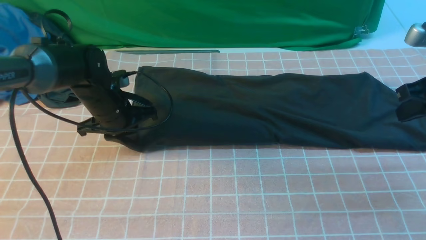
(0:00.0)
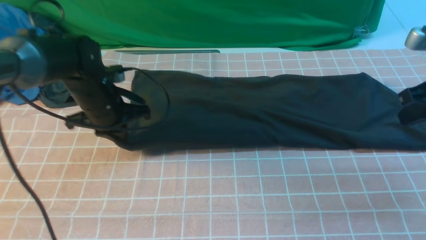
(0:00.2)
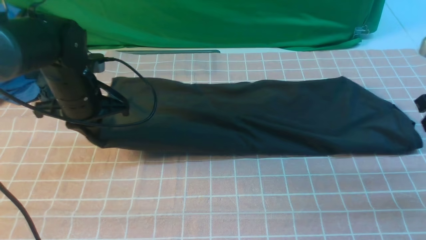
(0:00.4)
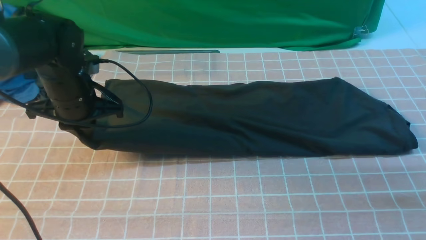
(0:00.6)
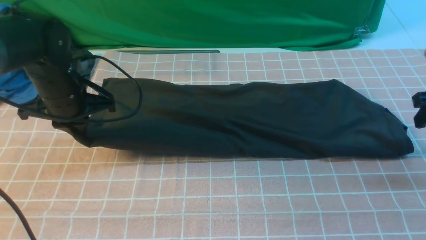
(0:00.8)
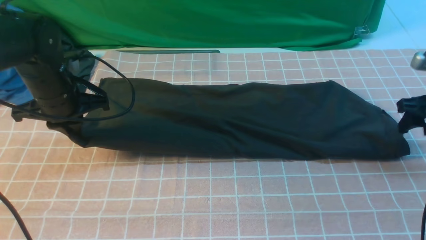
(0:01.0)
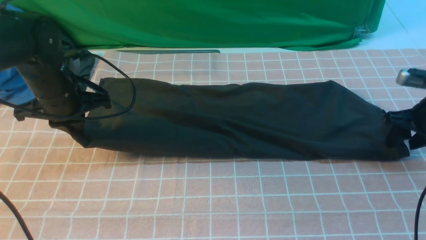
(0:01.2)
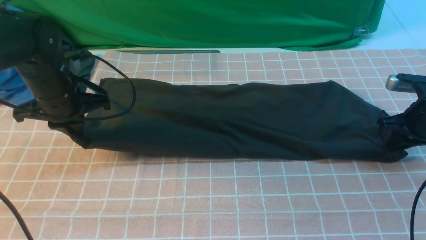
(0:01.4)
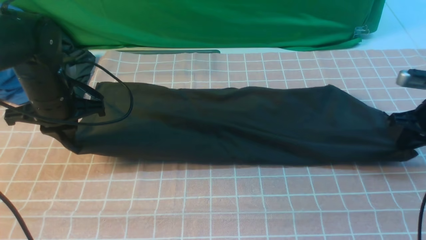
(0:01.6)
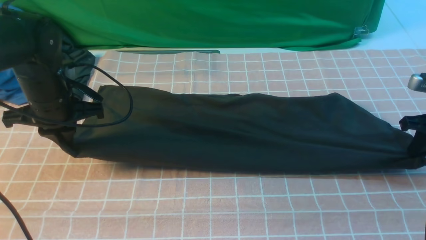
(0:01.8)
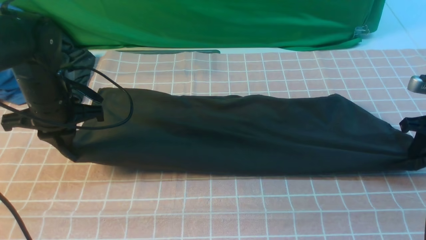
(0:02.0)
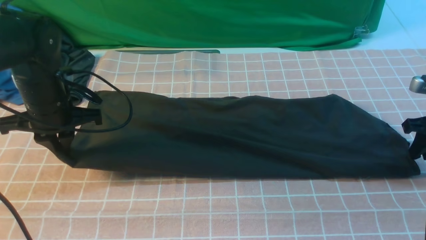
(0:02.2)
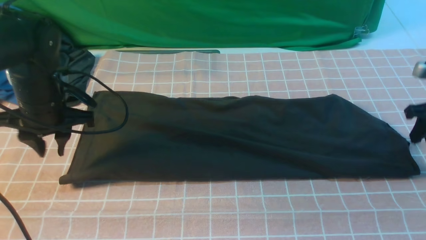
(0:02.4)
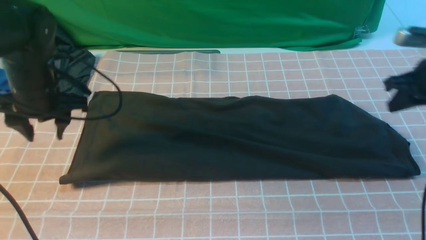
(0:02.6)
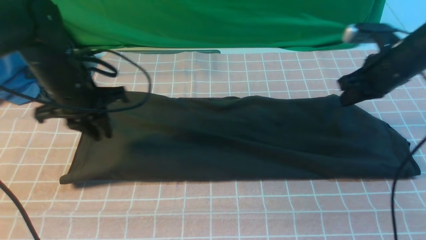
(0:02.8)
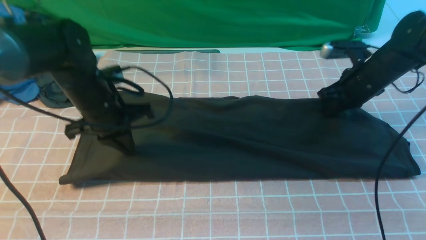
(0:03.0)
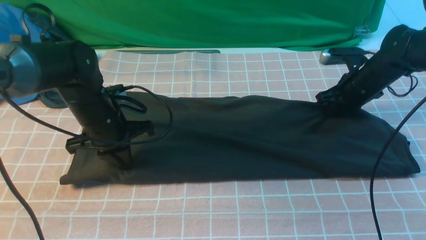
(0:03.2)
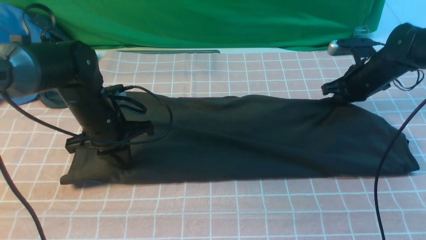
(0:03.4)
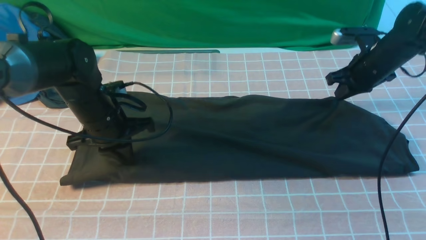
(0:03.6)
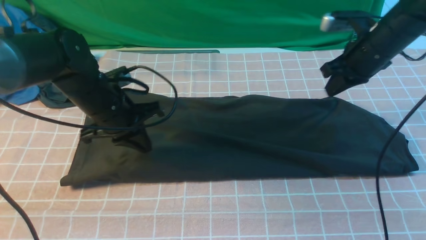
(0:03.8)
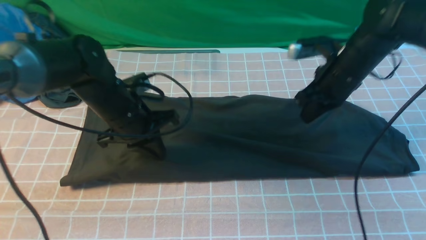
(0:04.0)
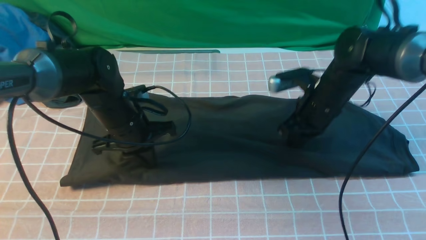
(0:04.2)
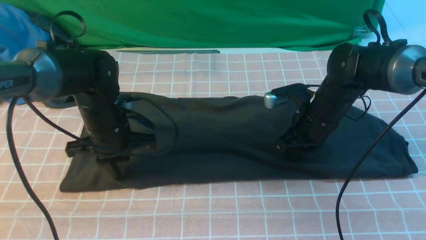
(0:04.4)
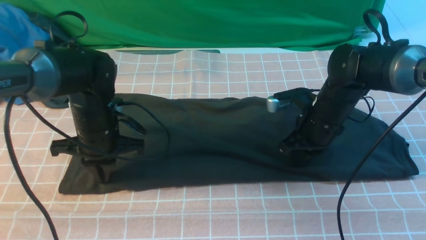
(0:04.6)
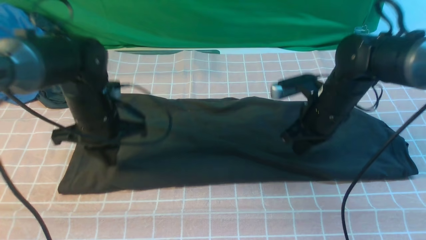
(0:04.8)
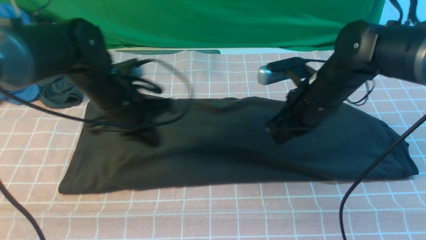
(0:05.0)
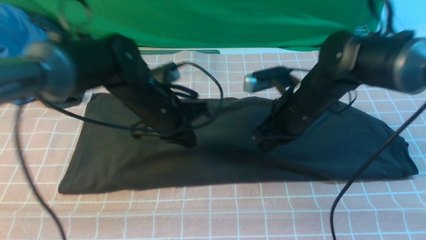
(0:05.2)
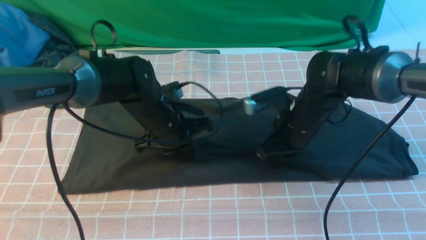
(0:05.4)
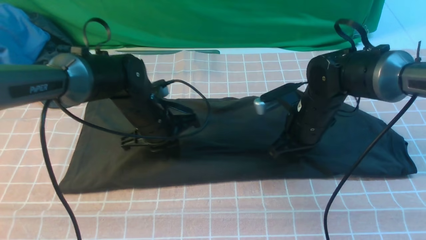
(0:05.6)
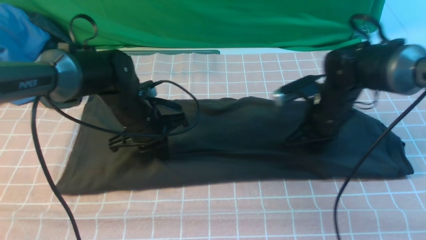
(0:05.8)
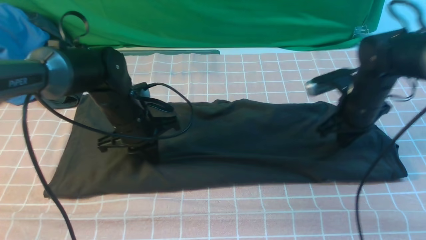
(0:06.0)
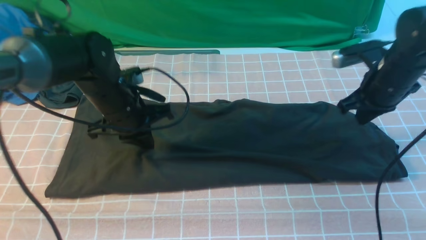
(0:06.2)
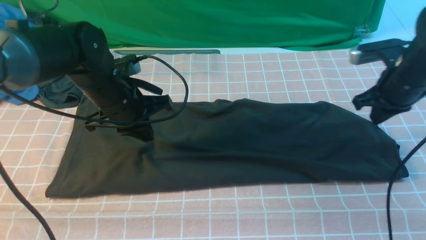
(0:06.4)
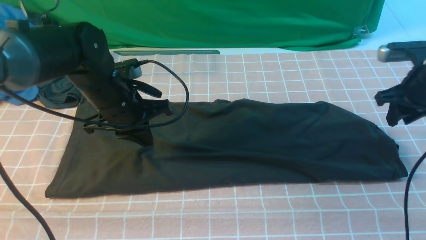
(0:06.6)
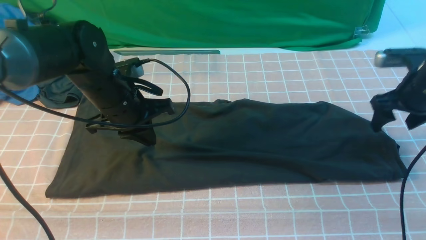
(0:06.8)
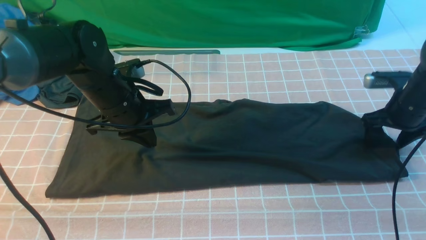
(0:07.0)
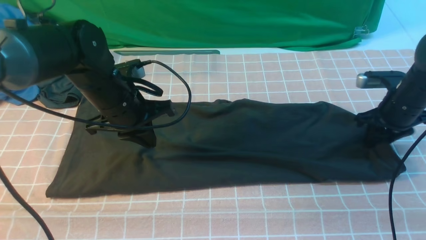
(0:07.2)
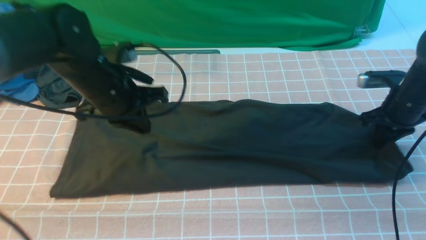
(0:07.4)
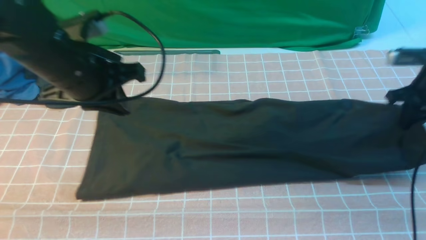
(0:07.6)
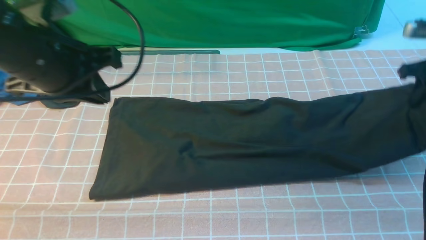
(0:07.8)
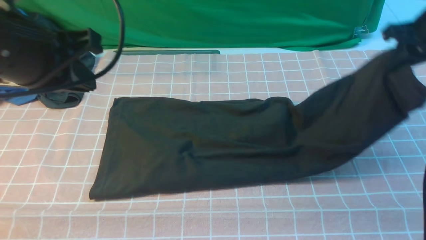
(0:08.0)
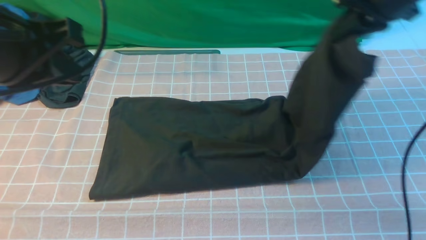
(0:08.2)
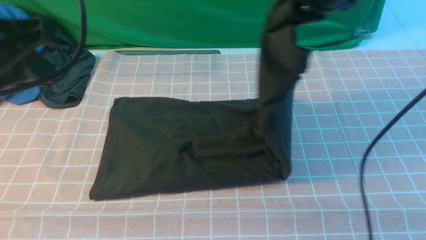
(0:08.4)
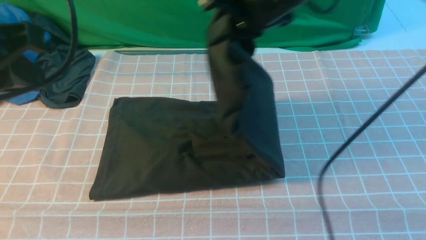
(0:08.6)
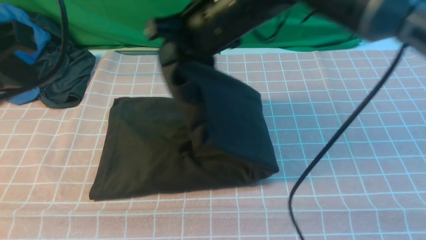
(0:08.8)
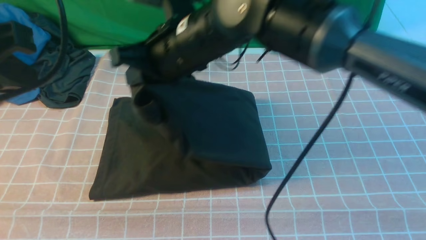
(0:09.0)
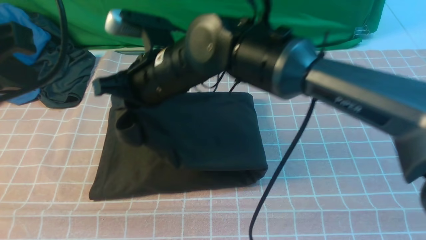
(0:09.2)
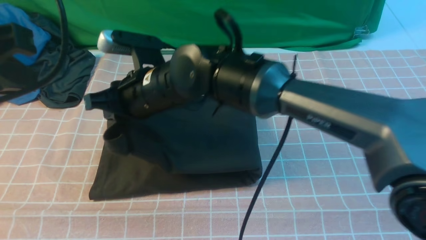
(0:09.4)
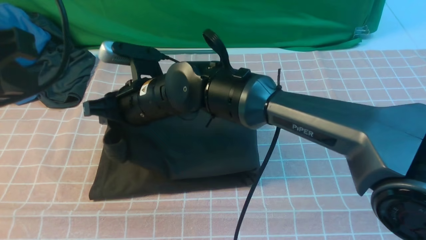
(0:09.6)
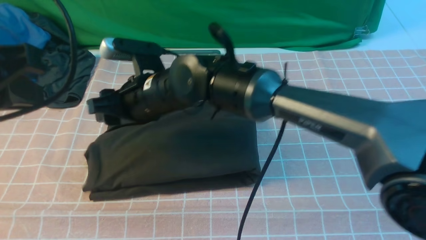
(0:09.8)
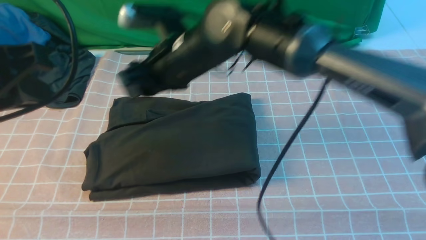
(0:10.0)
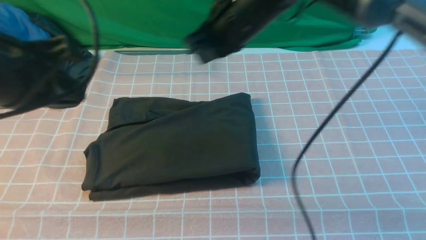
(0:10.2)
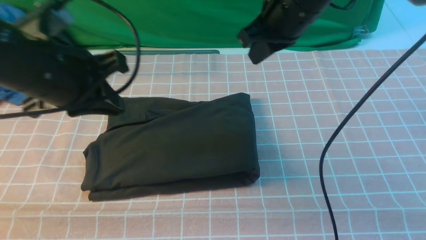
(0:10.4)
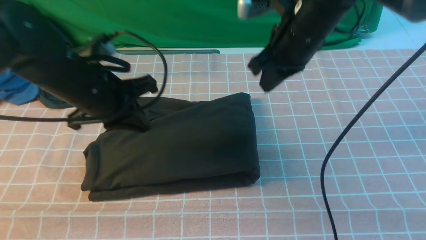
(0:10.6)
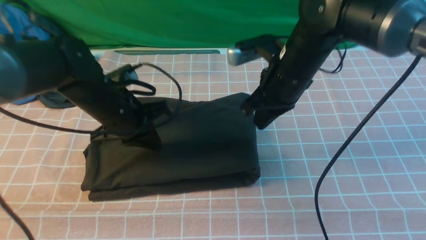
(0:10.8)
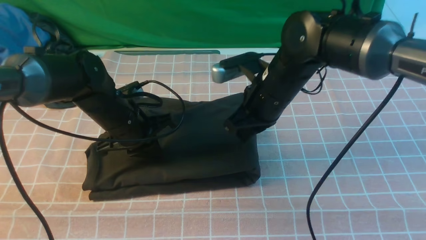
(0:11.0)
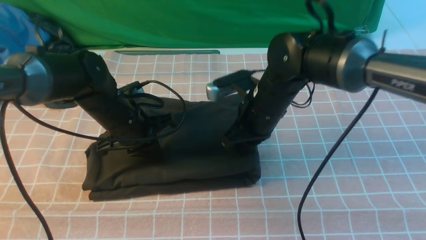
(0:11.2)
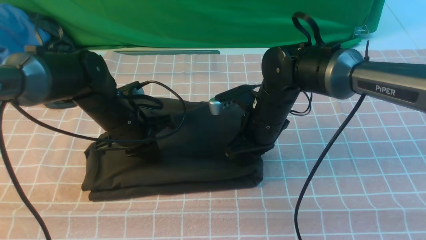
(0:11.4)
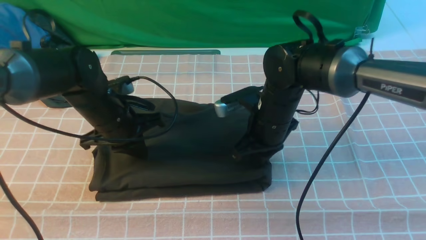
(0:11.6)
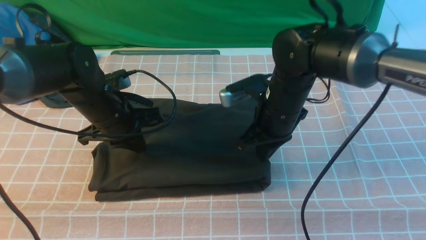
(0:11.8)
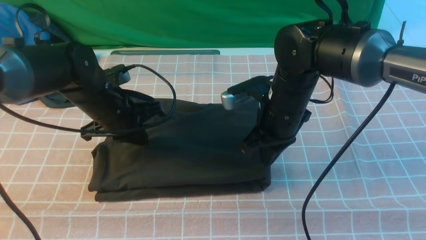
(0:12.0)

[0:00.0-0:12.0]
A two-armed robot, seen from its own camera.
Step, 0:00.0 to 0:07.2: use the right arm to clamp the right edge of the fabric.
Step, 0:07.4 to 0:09.8: use the right arm to drag the right edge of the fabric to the left and folds it over the left edge.
0:00.0 to 0:01.6: The right gripper heads downward, covering roughly 10 cm, and opens, then closes again, while the left gripper shifts approximately 10 cm to the left and upward, and closes up.
0:01.6 to 0:03.0: The left gripper shifts roughly 5 cm to the right, and opens, then closes again. Meanwhile the right gripper moves to the left and forward, approximately 15 cm.
0:03.0 to 0:04.4: The right gripper heads to the left and backward, covering roughly 10 cm.
0:04.4 to 0:06.0: The right gripper shifts approximately 5 cm to the right. Meanwhile the left gripper goes to the right and returns, some 5 cm each way.
0:06.0 to 0:07.6: The left gripper is displaced upward and backward by about 15 cm; the right gripper goes about 10 cm to the right, and opens, then closes again.
0:07.6 to 0:09.0: The left gripper heads backward and upward, covering some 15 cm; the right gripper goes about 40 cm to the left.
0:09.0 to 0:10.4: The right gripper is displaced to the right by approximately 15 cm, and opens, then closes once more, while the left gripper goes about 15 cm forward and downward.
0:10.4 to 0:12.0: The right gripper travels downward by approximately 15 cm; the left gripper heads downward and forward, covering approximately 15 cm.

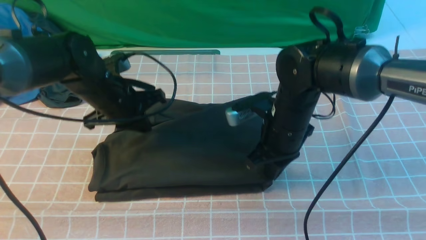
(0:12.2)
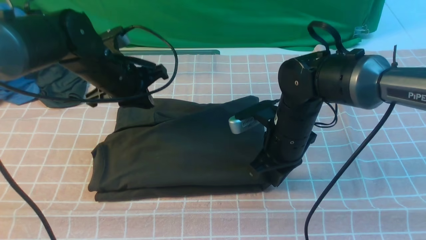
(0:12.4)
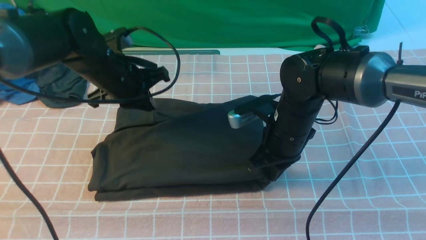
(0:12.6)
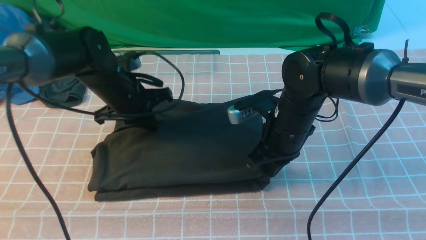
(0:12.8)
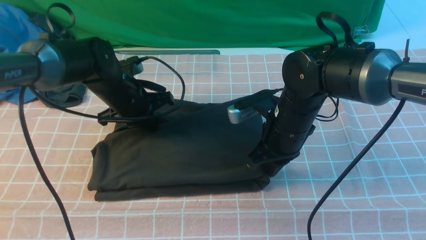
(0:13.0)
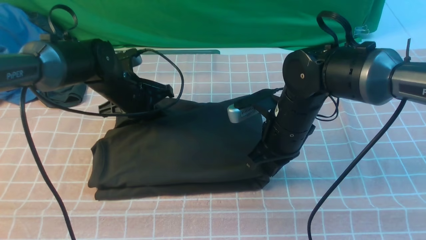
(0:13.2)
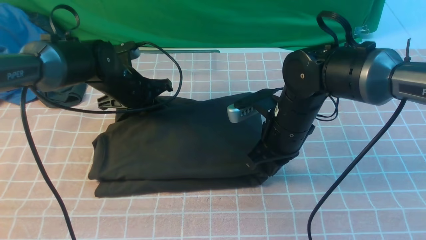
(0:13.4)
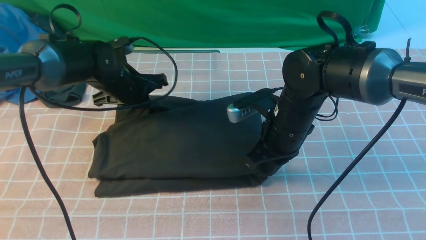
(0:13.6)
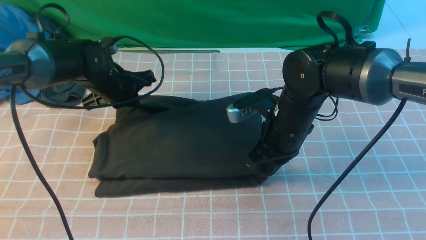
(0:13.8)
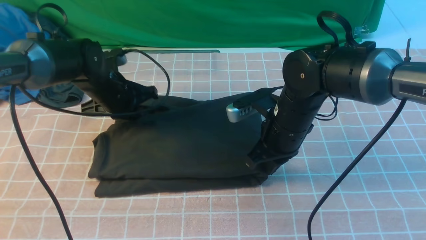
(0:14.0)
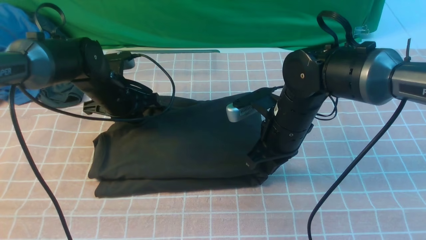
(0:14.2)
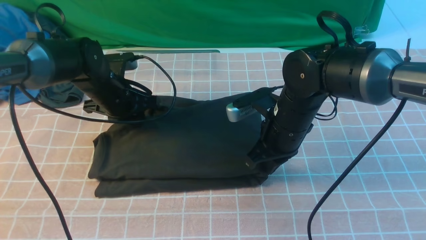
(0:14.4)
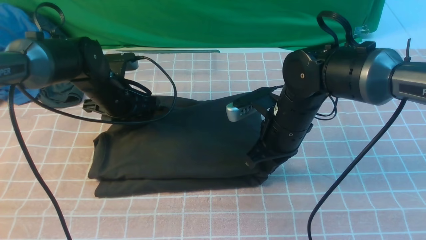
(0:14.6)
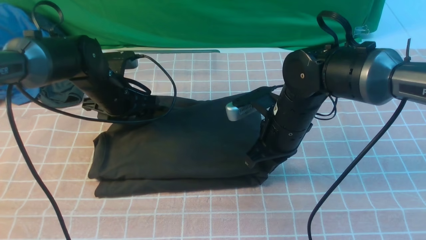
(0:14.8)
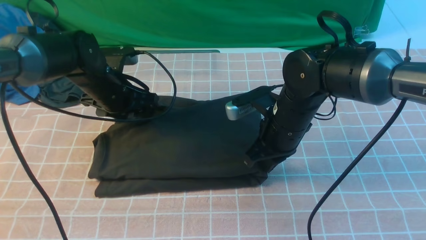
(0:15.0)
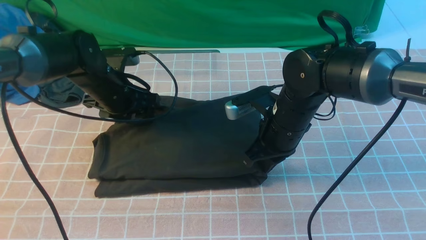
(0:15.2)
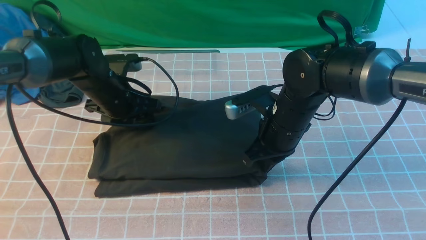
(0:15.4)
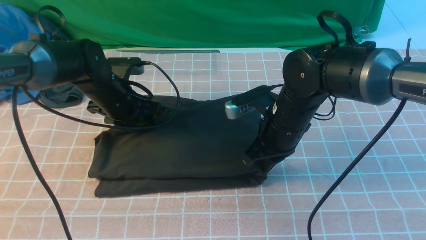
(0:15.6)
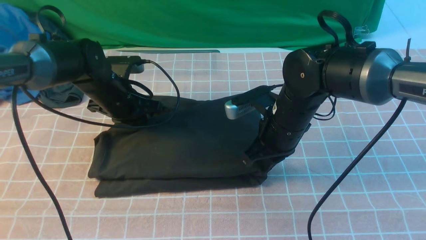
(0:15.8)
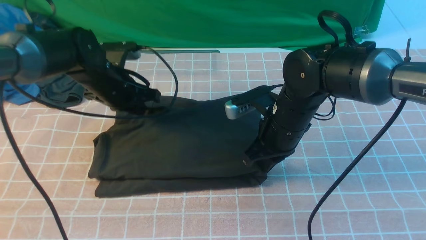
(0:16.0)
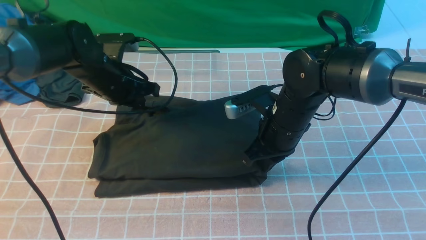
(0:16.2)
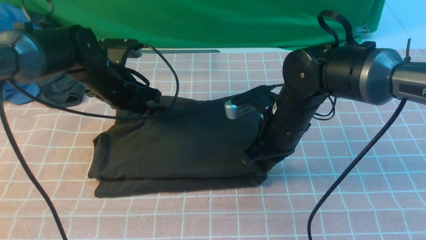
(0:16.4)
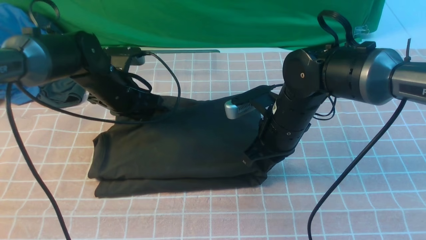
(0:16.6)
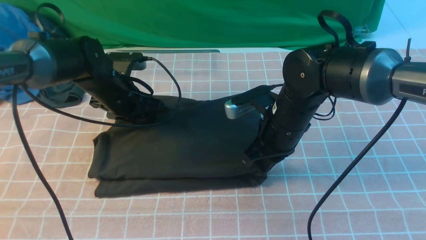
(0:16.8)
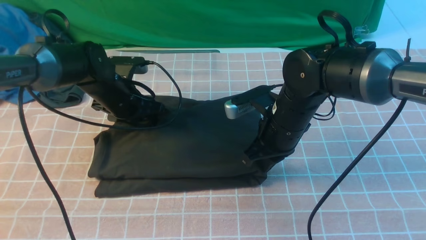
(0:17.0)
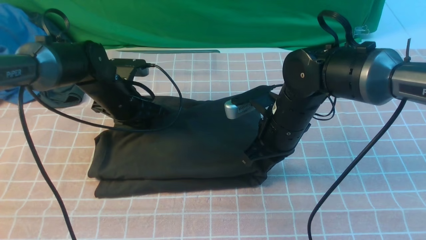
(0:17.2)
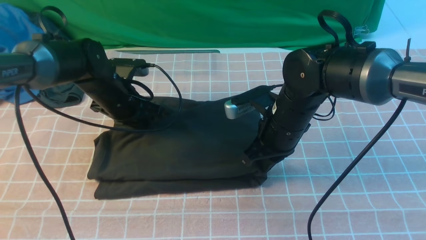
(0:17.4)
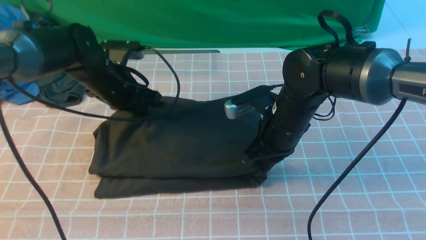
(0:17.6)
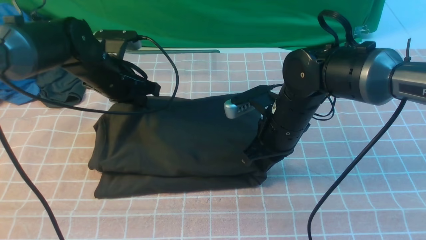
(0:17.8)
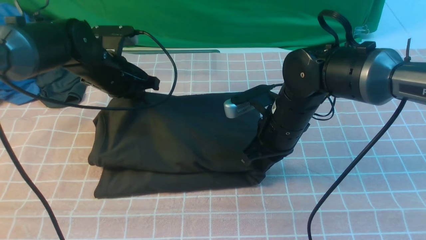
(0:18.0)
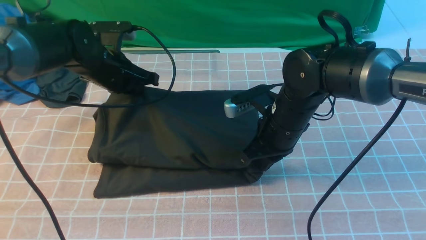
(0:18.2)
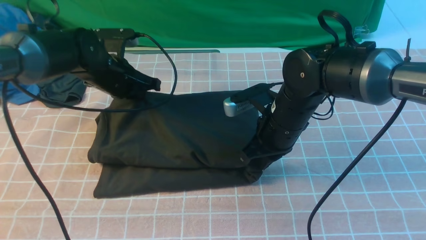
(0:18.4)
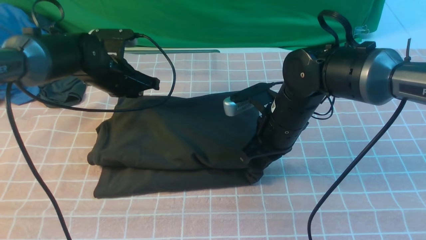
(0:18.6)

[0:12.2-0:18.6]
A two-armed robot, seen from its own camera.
0:12.2 to 0:13.8: The left gripper moves forward, some 5 cm.
0:13.8 to 0:15.4: The left gripper opens up.
0:15.4 to 0:17.0: The left gripper closes, then reopens.
0:17.0 to 0:18.6: The left gripper closes its fingers.
